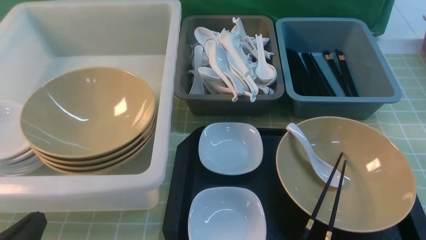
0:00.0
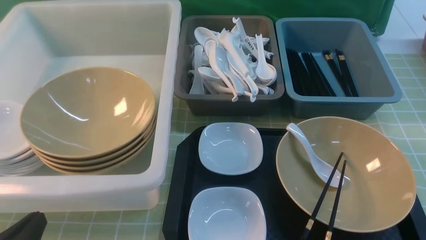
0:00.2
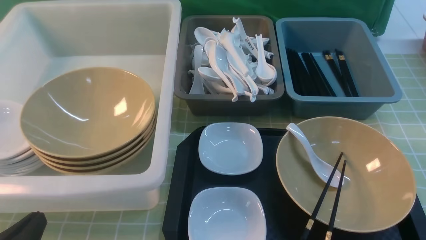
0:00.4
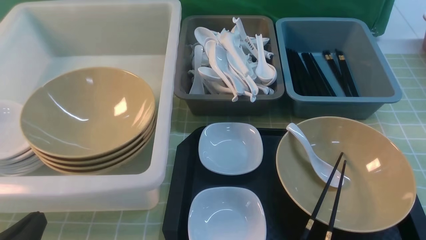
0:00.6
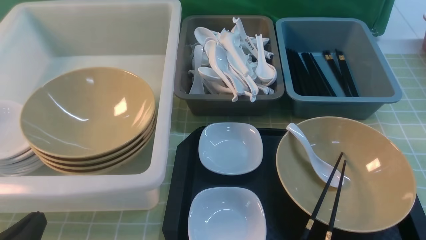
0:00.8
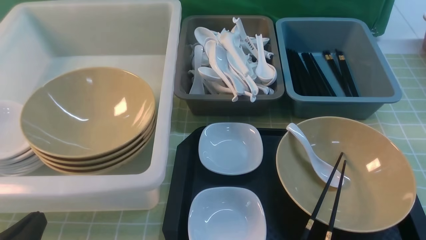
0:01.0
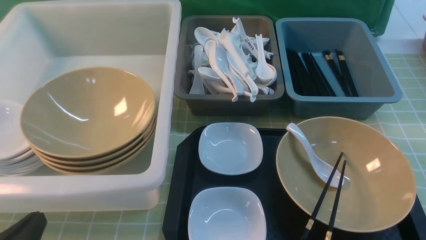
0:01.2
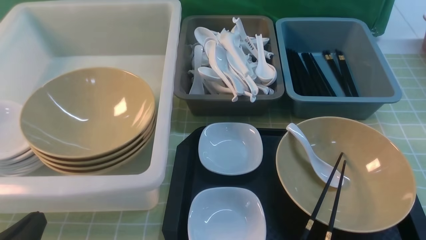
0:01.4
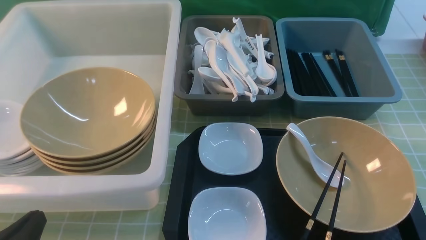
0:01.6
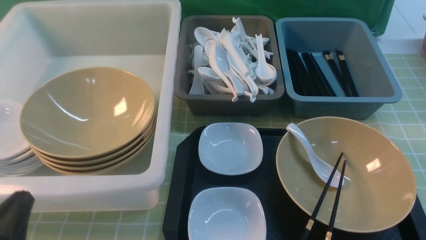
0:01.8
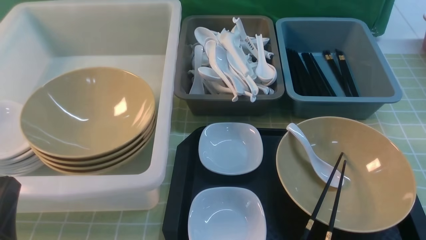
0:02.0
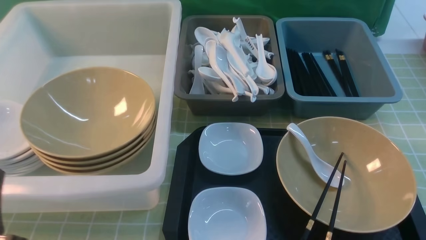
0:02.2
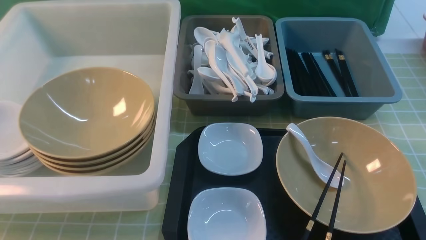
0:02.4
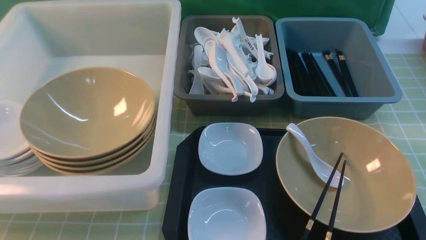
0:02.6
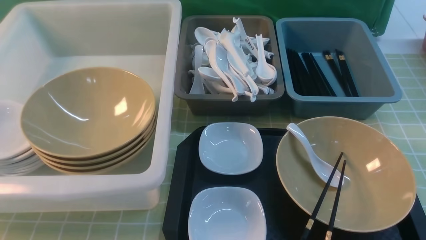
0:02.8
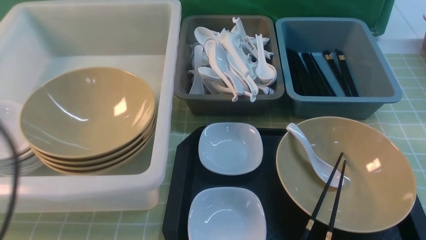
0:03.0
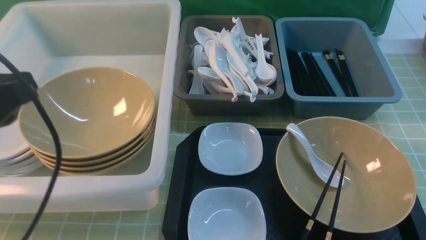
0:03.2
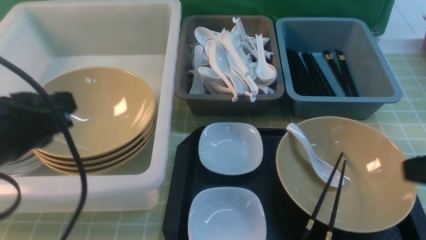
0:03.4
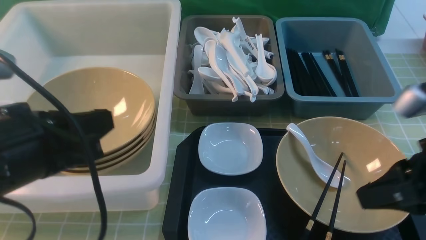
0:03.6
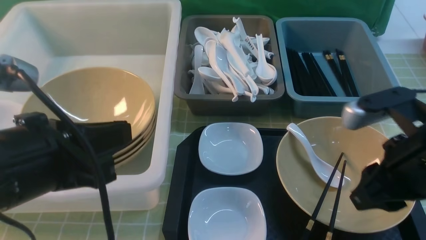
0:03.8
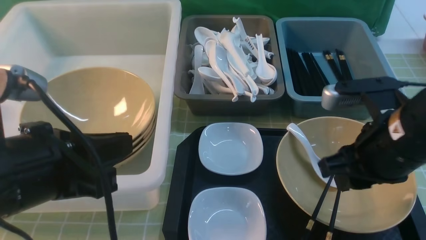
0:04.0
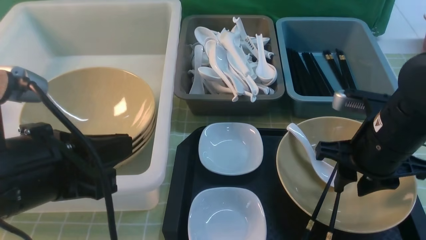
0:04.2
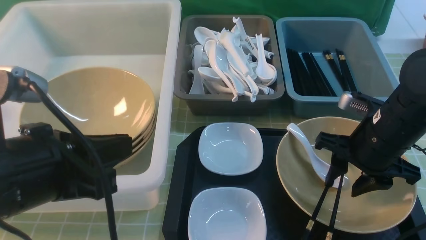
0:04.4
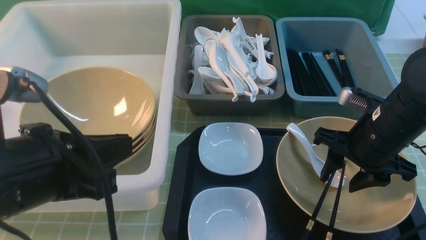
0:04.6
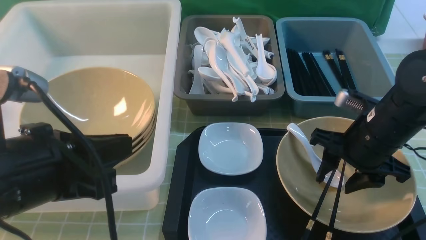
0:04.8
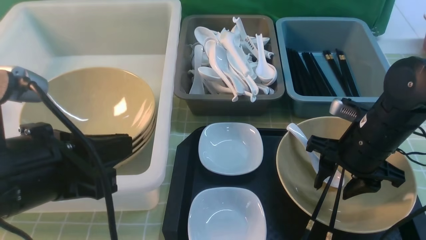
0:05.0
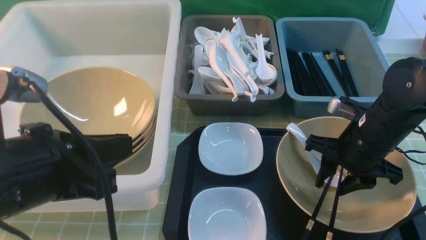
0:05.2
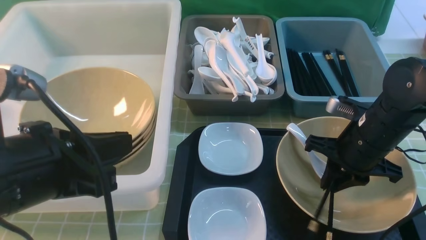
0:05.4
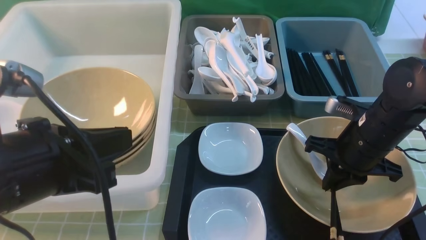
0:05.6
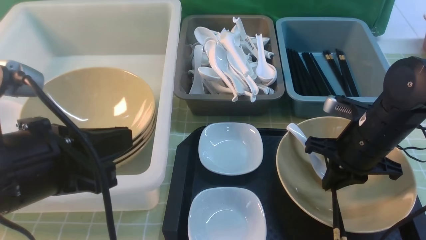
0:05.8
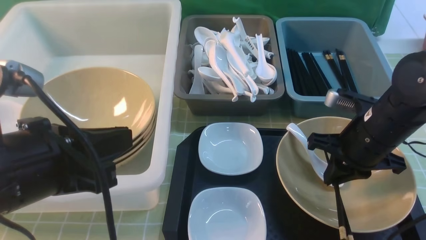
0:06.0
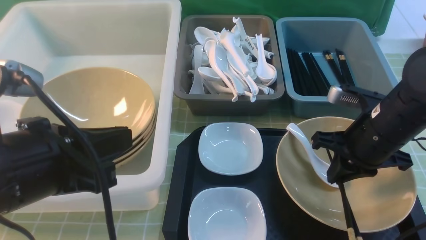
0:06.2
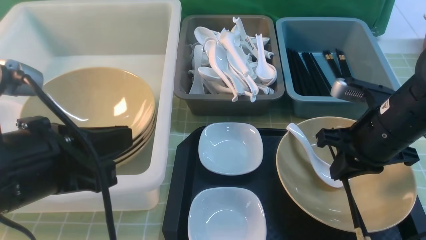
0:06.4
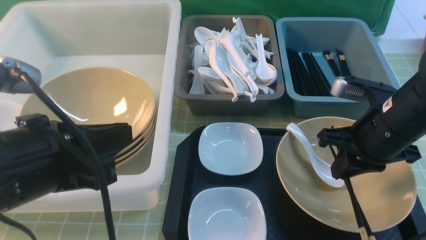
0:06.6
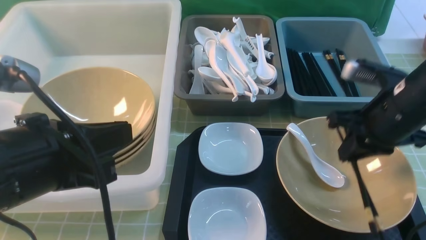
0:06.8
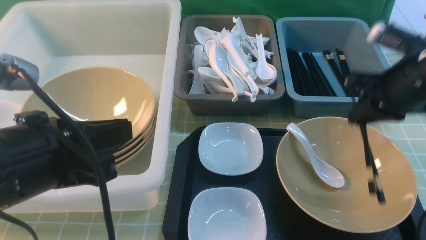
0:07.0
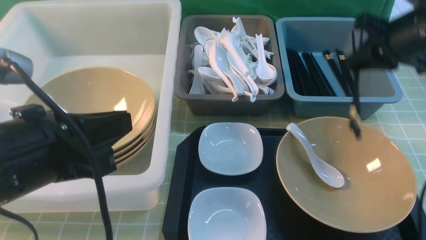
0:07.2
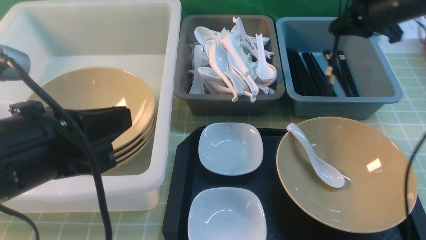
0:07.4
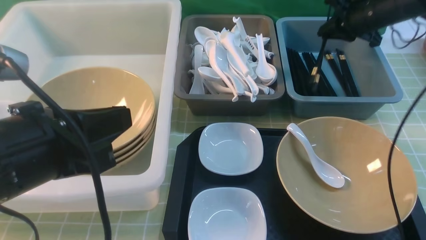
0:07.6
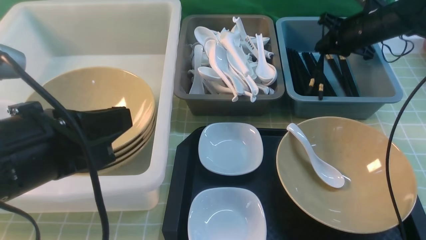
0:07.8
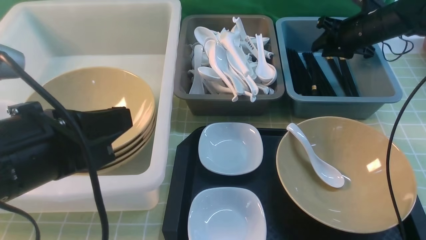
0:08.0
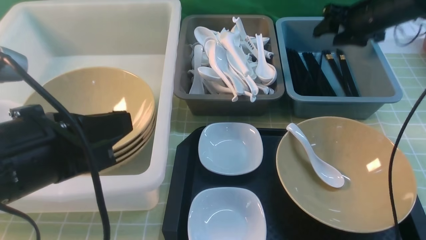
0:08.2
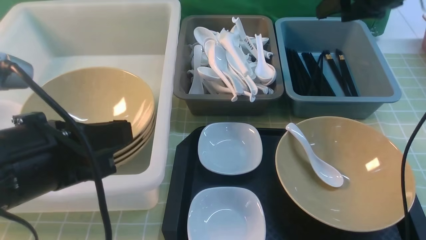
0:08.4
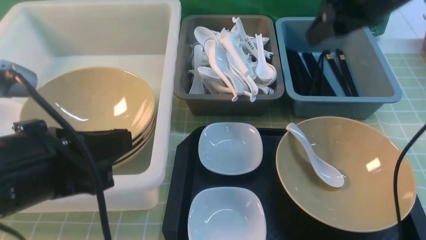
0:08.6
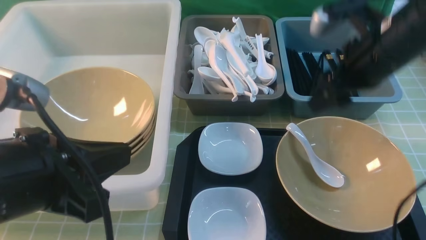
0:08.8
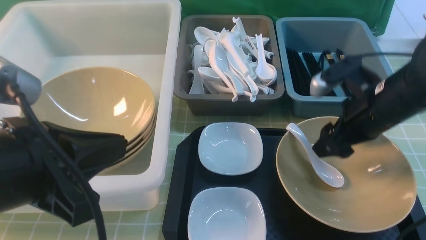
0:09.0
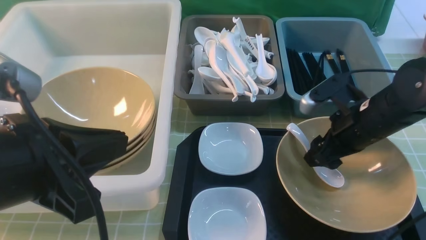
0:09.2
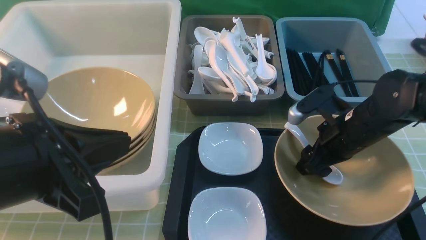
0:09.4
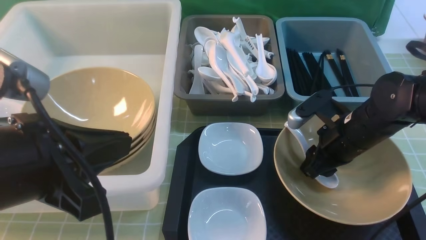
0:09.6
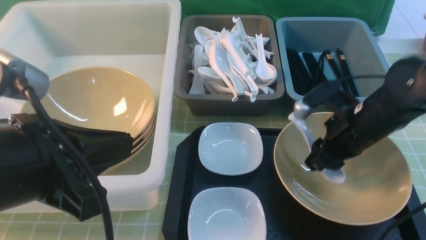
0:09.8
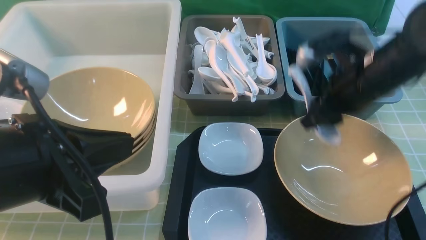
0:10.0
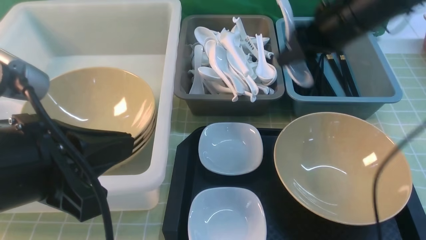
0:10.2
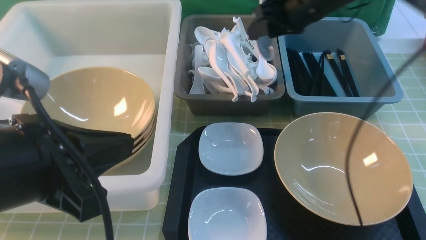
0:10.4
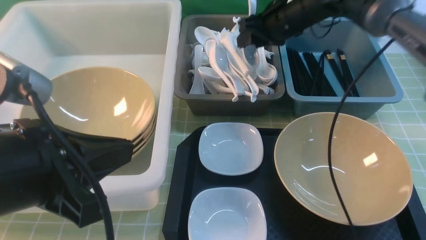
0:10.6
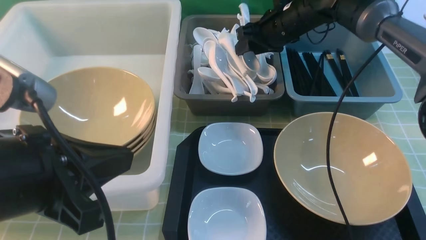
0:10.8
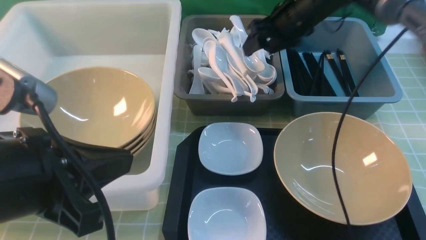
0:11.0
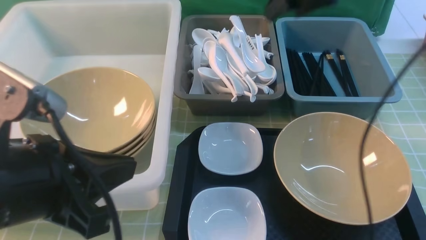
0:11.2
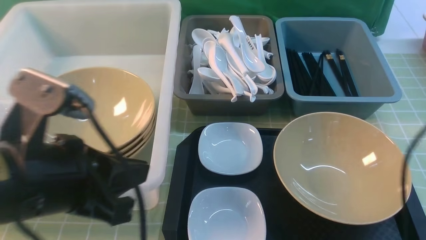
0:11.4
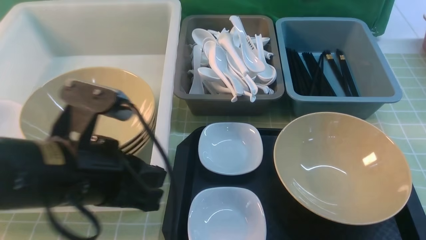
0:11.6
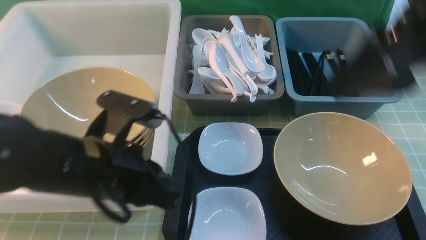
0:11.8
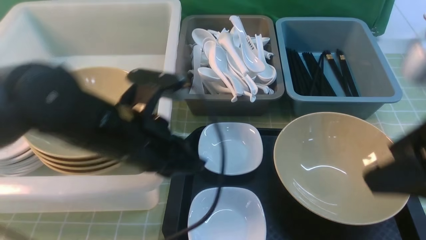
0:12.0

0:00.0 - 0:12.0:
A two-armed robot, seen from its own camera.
Task of the whole recording: on green table put chopsticks spoon bowls plates into blue grey white boxes.
Step, 0:00.0 - 0:06.4: use the right arm to grab the chopsticks.
Step, 0:06.6 - 0:08.0: use the right arm to put the chopsticks into the small storage box on the right.
Step, 0:08.2 - 0:10.0: use the right arm to grab the soup spoon in the middle.
Step, 0:10.2 - 0:11.0: use the right arm to put the soup spoon into the small storage box in the middle.
0:00.0 - 0:01.6: The two grippers keep their place.
0:01.6 - 0:03.0: The left gripper travels upward by roughly 20 cm.
0:03.0 - 0:04.4: The left gripper is displaced to the right by about 5 cm. The right gripper is displaced forward, downward and to the left by roughly 25 cm.
0:04.4 - 0:06.0: The right gripper closes.
0:06.0 - 0:07.6: The right gripper shifts some 25 cm forward and to the right.
0:07.6 - 0:09.0: The right gripper moves backward and to the left, some 20 cm, and opens up.
0:09.0 - 0:10.4: The right gripper shifts approximately 15 cm forward, upward and to the left, and closes up.
0:10.4 - 0:12.0: The right gripper heads backward, covering approximately 30 cm, while the left gripper moves forward, to the right and downward, about 15 cm.

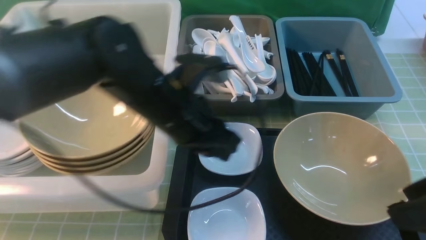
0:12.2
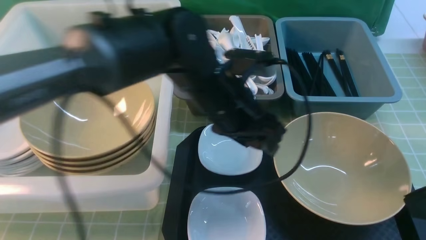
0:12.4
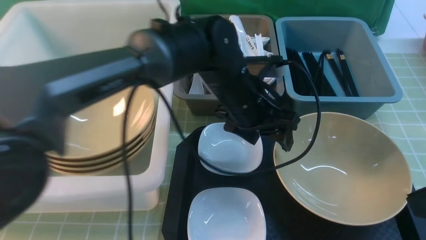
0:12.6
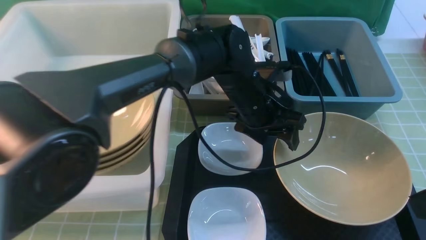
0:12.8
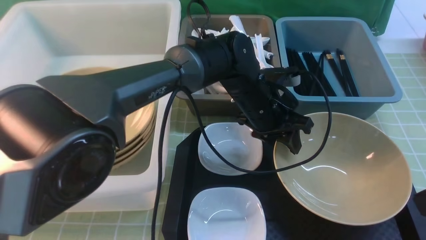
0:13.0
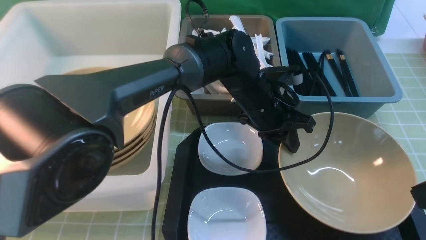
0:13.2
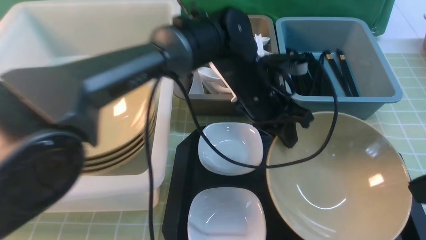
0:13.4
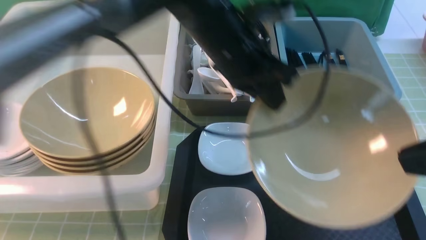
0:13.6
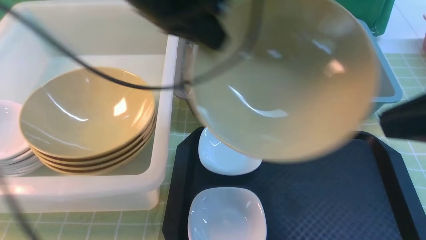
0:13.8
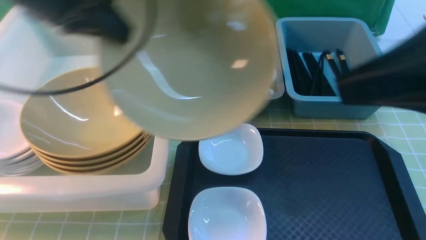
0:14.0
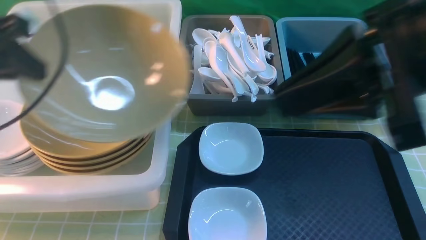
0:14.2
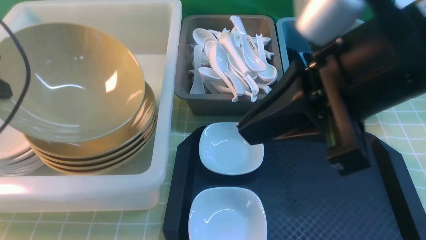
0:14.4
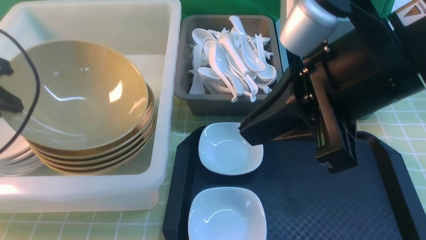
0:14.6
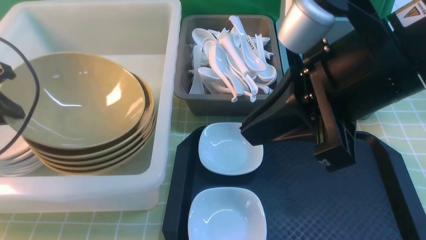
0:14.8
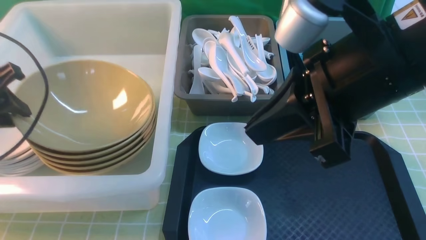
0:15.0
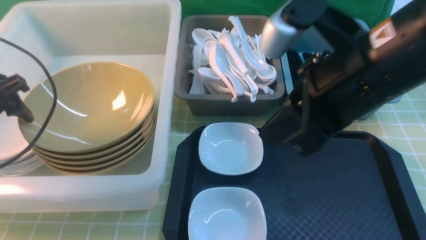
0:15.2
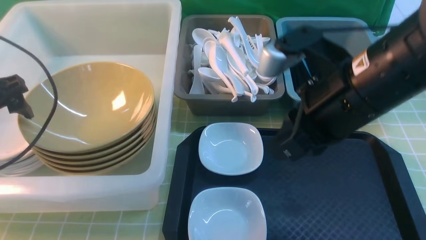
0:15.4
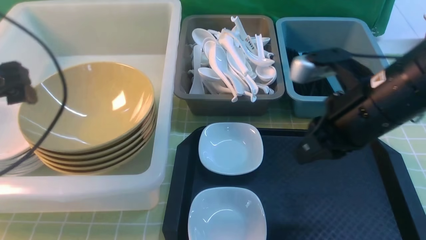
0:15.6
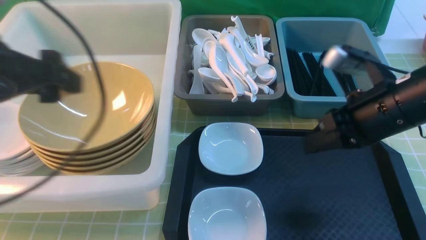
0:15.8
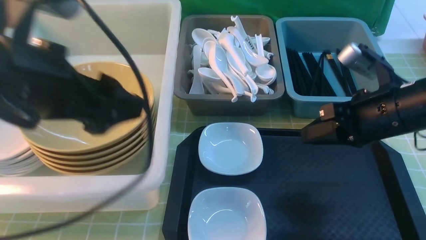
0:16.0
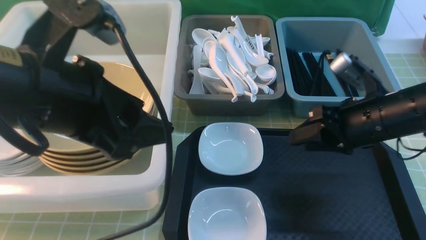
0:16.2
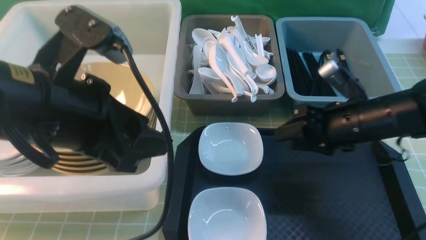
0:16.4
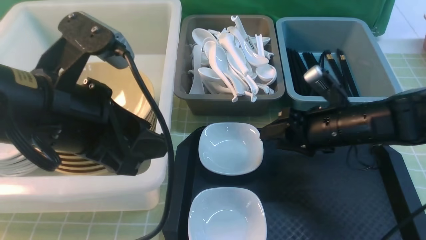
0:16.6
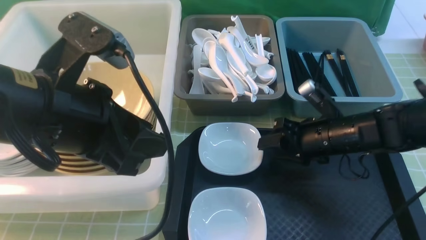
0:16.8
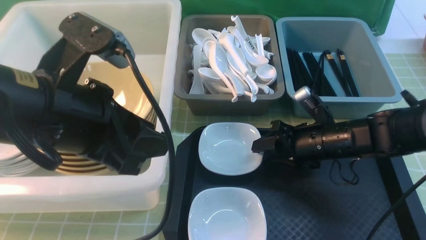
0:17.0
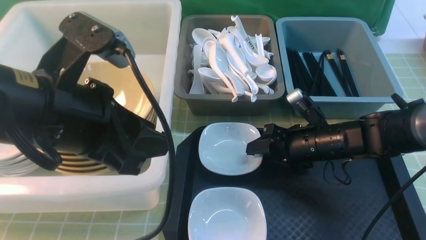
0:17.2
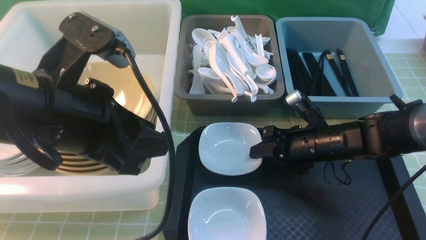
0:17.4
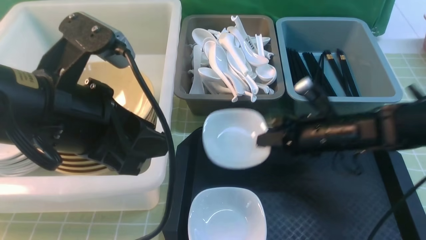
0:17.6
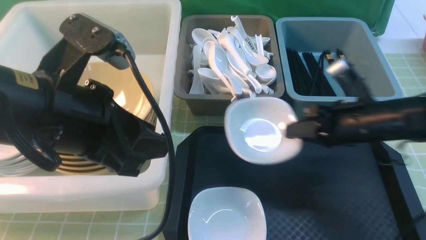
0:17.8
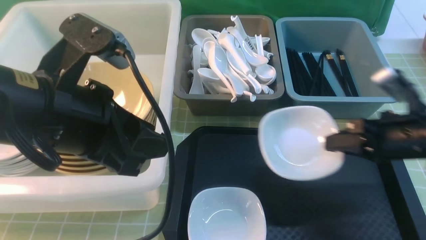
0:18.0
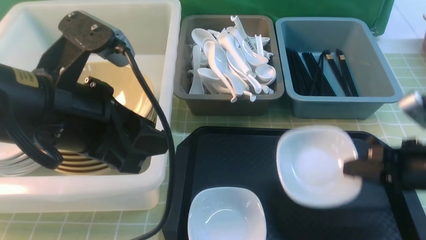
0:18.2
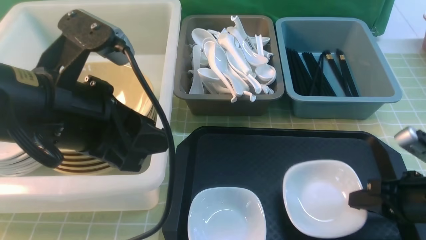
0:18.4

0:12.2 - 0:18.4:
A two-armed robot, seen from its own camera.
Task of the whole recording: on green table put chopsticks spoon bowls plates into blue grey white boxes.
Step, 0:13.4 - 0:15.6: use the left arm to put the noodle bowl into the large storage box on the left.
Step, 0:15.8 - 0:17.4: use the right arm to grab the plate.
0:12.2 - 0:13.8: The right gripper is displaced upward by some 5 cm, and closes its fingers. The left gripper moves upward, to the left and forward, some 15 cm, and opens and closes again.
0:13.8 - 0:15.4: The left gripper is displaced to the left and downward by approximately 20 cm, and opens, while the right gripper is displaced forward, downward and to the left by some 15 cm.
0:15.4 - 0:16.8: The left gripper goes approximately 20 cm to the right and backward, and closes. Meanwhile the right gripper is displaced downward and forward by some 20 cm, and opens its fingers.
0:16.8 - 0:18.4: The right gripper heads backward and to the right, covering about 15 cm, and closes its fingers.
